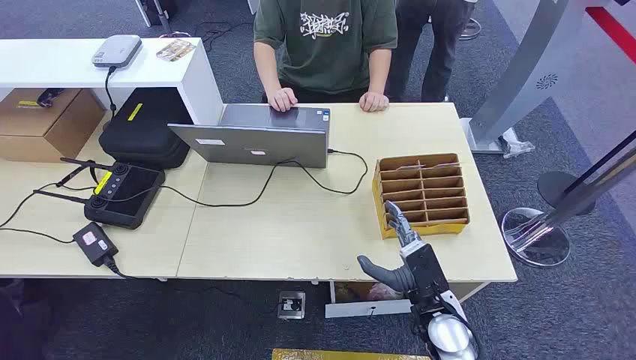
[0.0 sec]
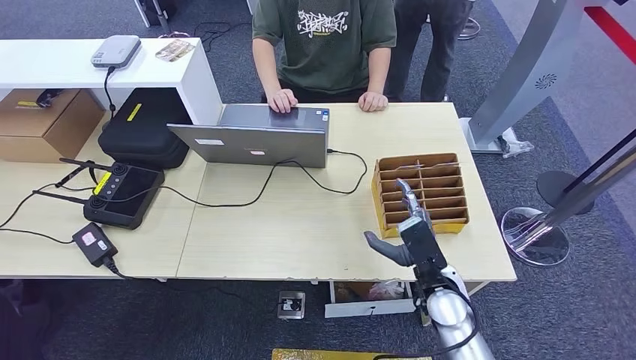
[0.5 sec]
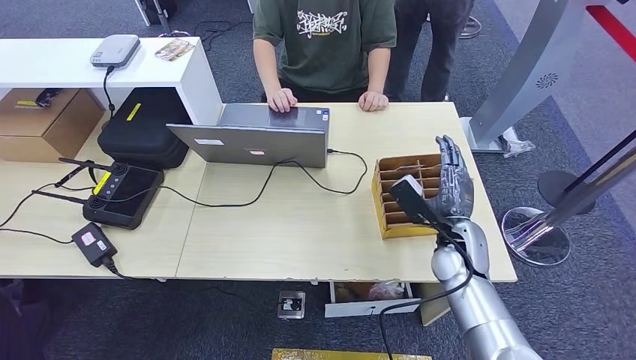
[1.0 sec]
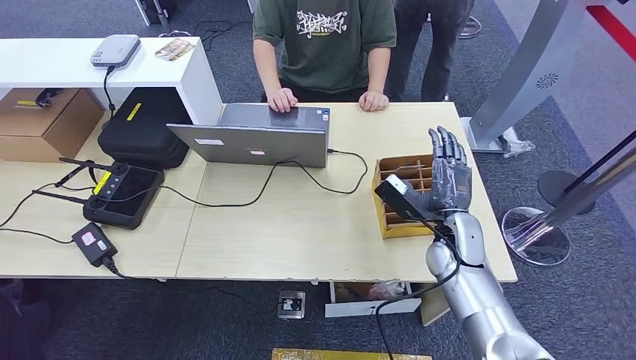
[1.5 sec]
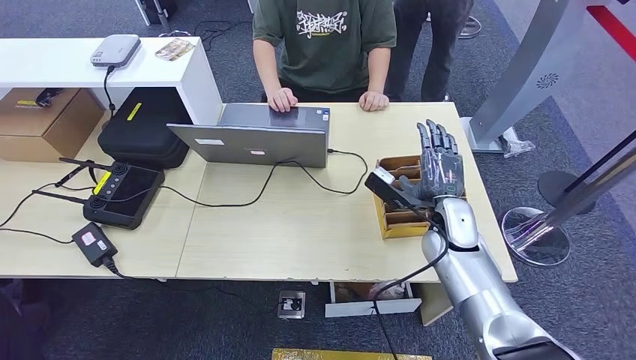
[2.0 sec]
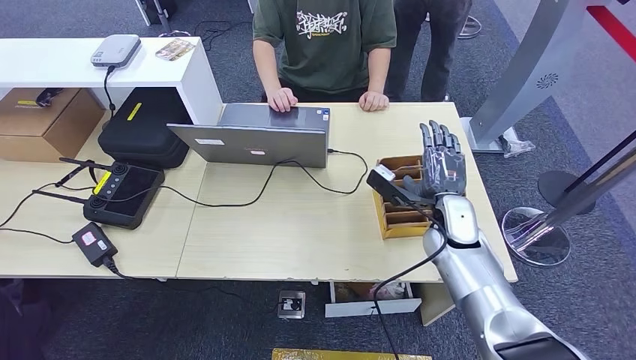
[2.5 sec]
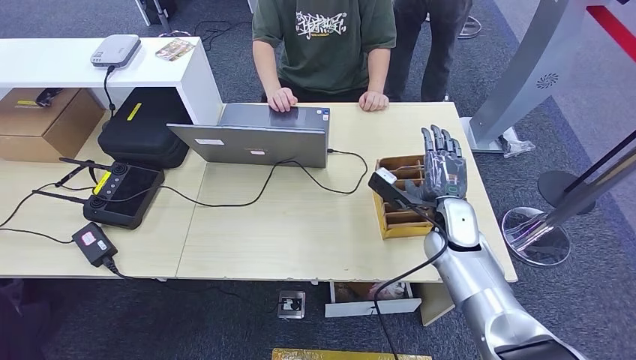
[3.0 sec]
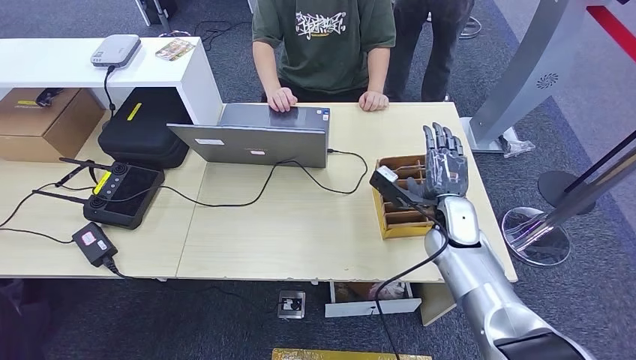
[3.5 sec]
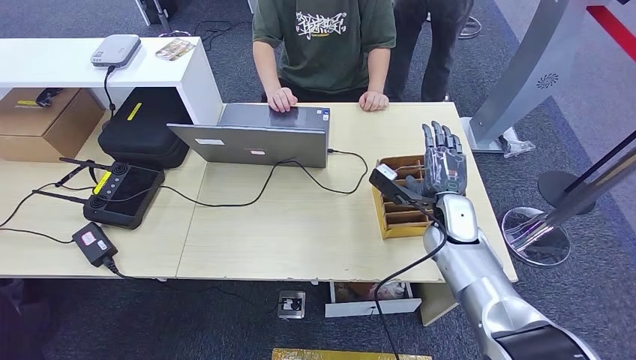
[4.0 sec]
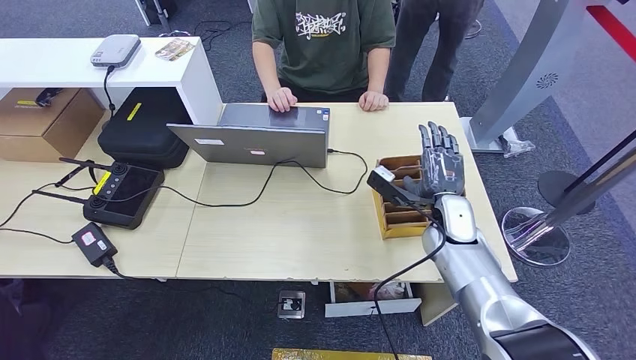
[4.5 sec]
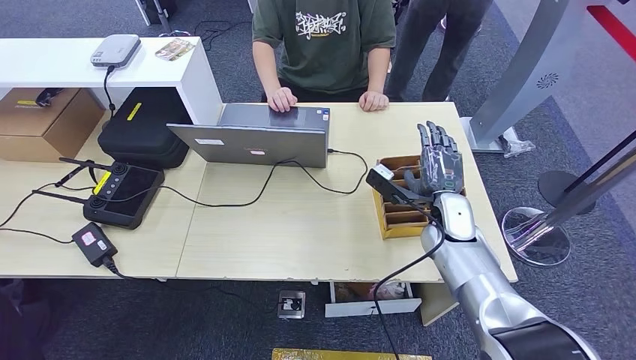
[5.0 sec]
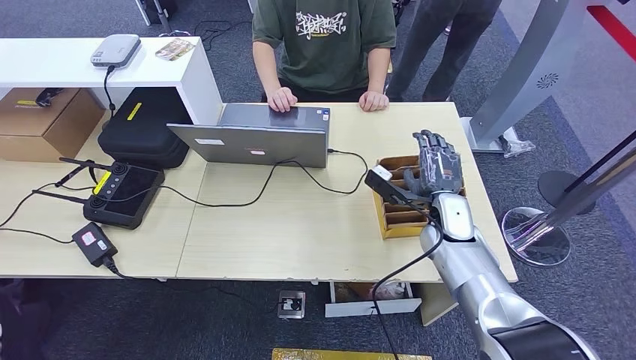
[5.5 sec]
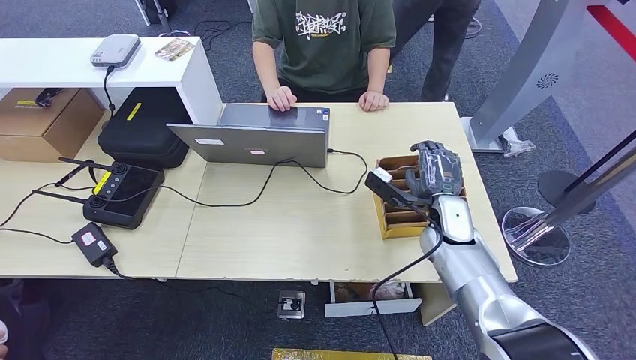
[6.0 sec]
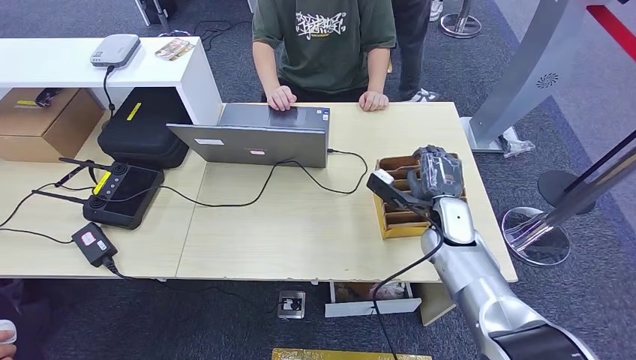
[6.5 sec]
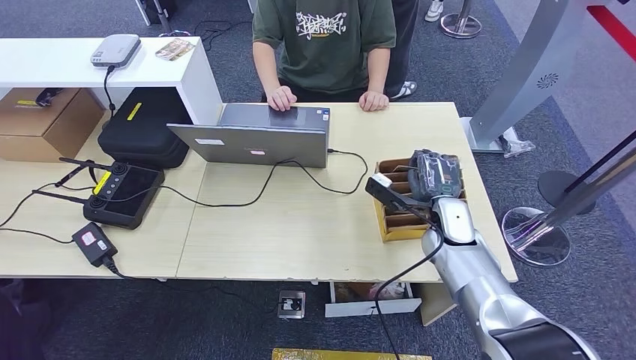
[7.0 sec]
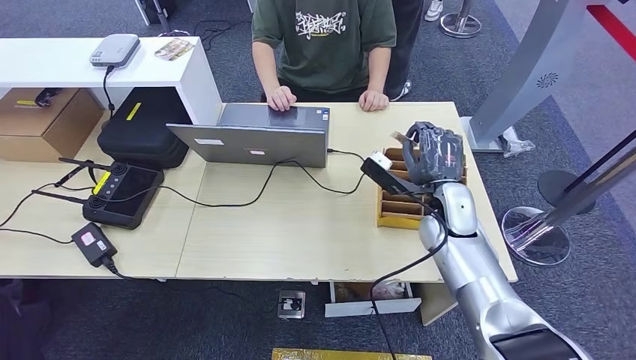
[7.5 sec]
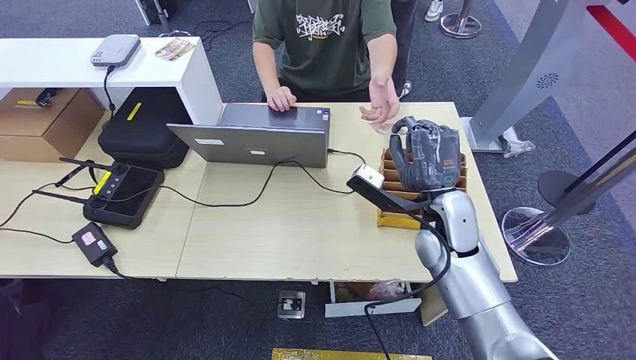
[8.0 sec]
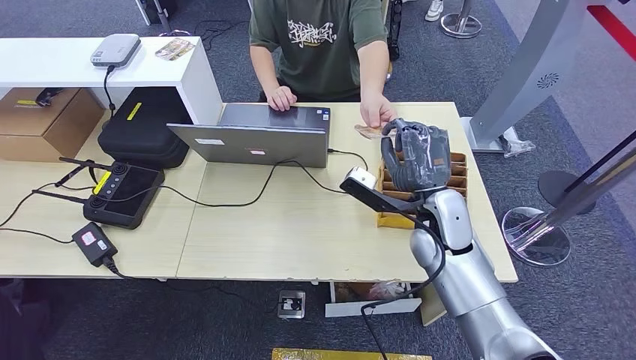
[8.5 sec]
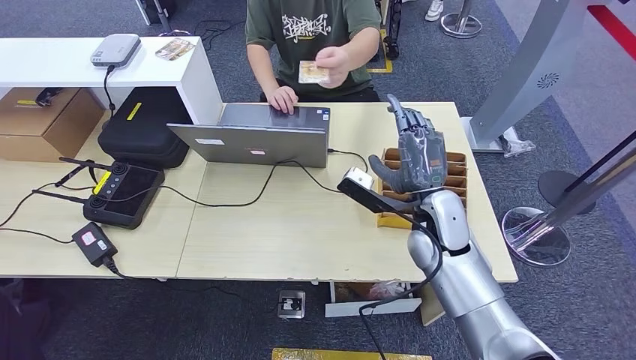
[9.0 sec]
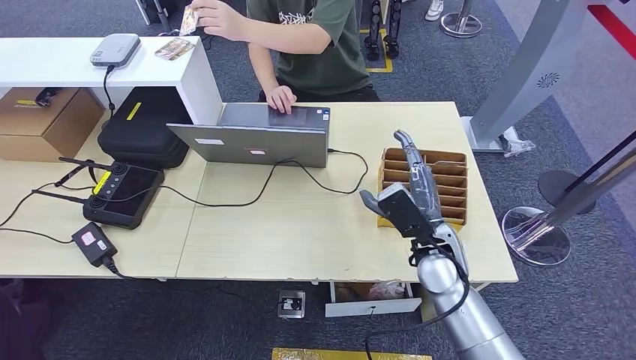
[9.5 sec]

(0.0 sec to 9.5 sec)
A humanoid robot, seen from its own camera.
Step, 0.0 sec - 7.0 sec: Pick up the key card from the card box.
Step, 8.0 sec - 9.5 sec: Hand the key card to the target.
2.0 sec - 4.0 sec: There are only small adjustments of the hands.
4.0 sec - 5.5 sec: Both hands stay put.
5.5 sec - 7.5 sec: There are only small adjustments of the hands.
7.5 sec - 9.5 sec: The right hand goes some 5 cm backward.

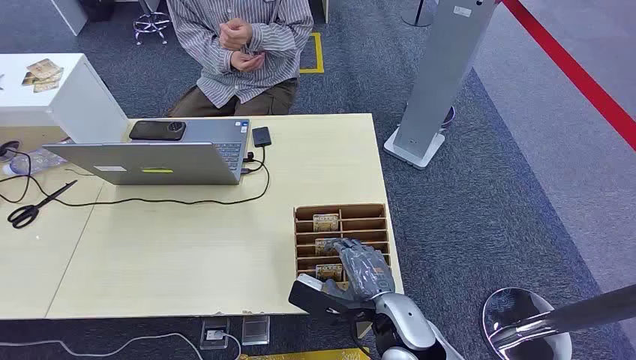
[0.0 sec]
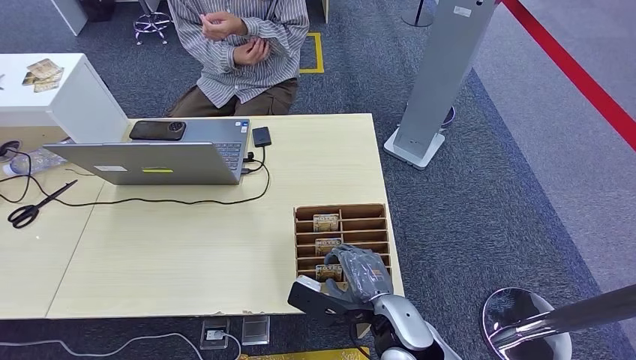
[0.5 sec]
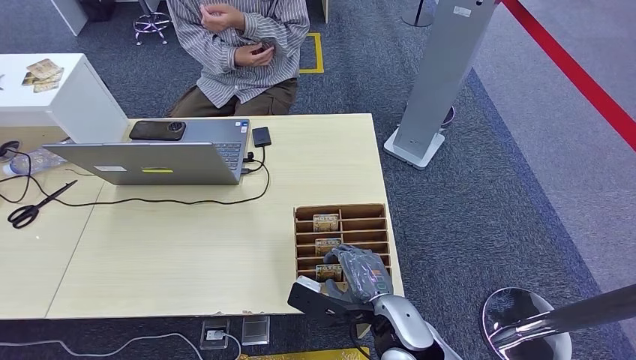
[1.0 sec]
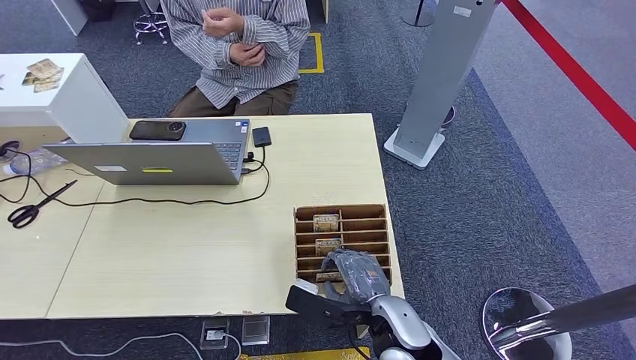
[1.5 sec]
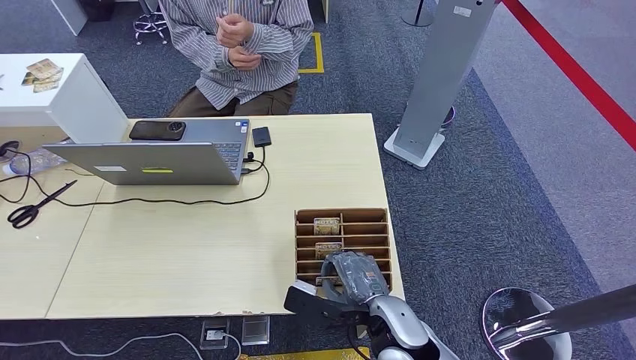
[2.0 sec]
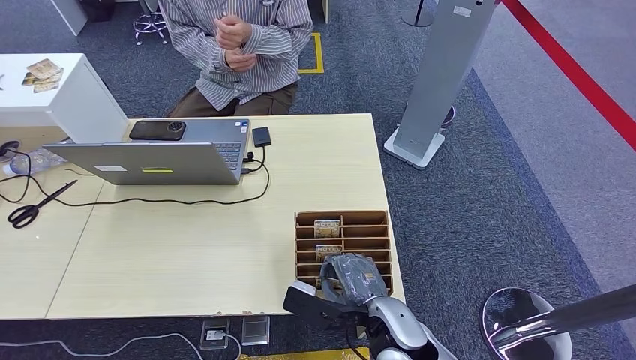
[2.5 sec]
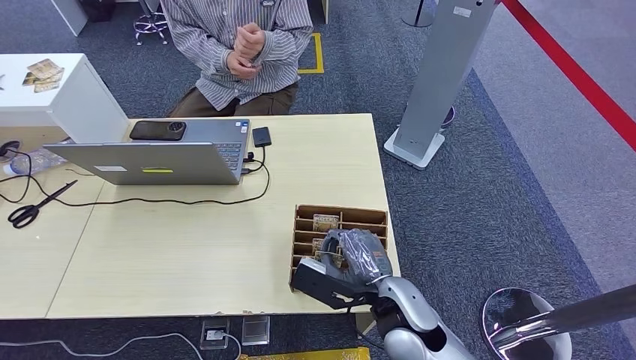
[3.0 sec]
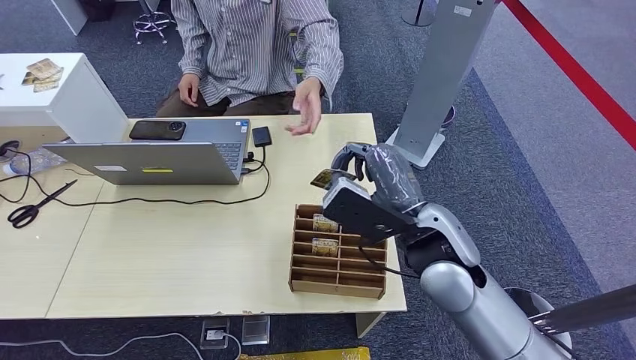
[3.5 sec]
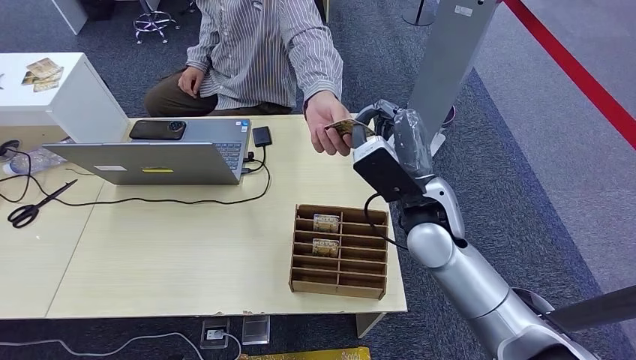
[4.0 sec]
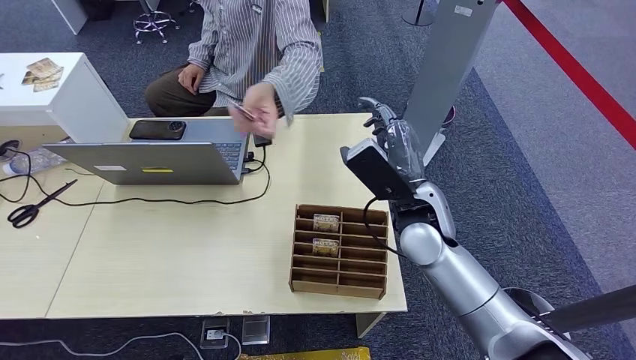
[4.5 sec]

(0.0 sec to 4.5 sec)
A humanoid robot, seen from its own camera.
Step, 0.0 sec - 3.0 sec: Pick up the key card from the card box.
Step, 4.0 sec - 4.5 sec: Hand the key card to the target.
2.0 sec - 4.5 sec: The right hand moves forward and upward, about 20 cm.

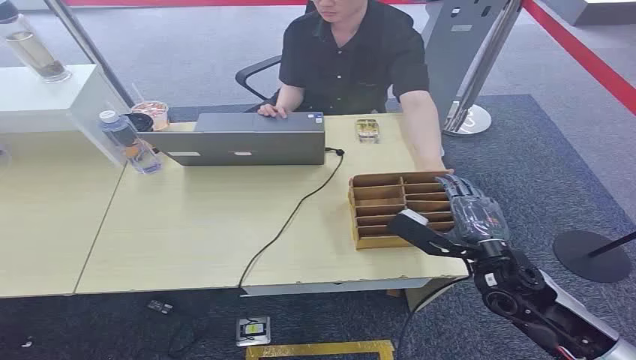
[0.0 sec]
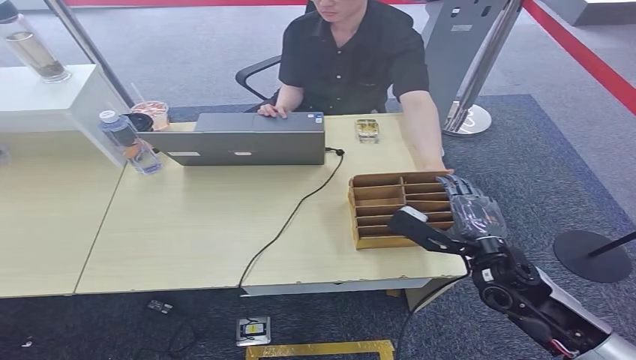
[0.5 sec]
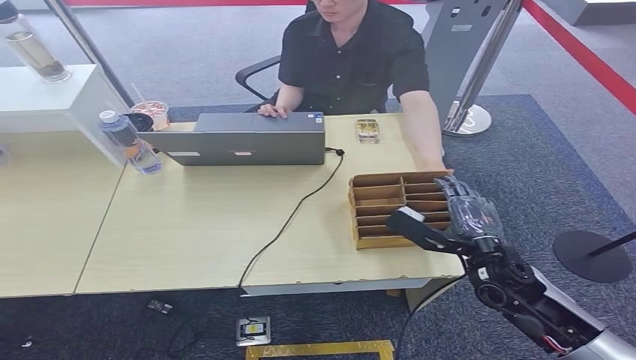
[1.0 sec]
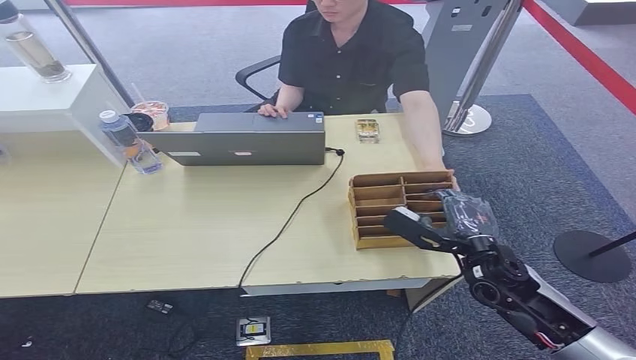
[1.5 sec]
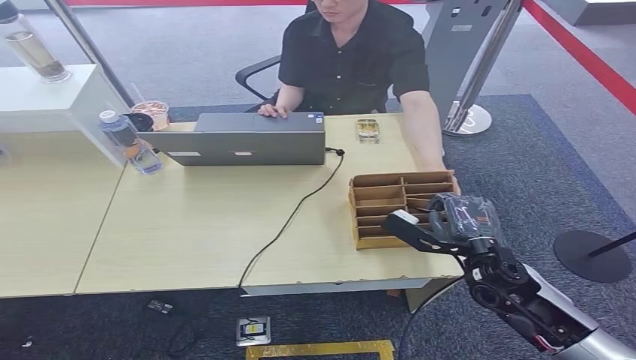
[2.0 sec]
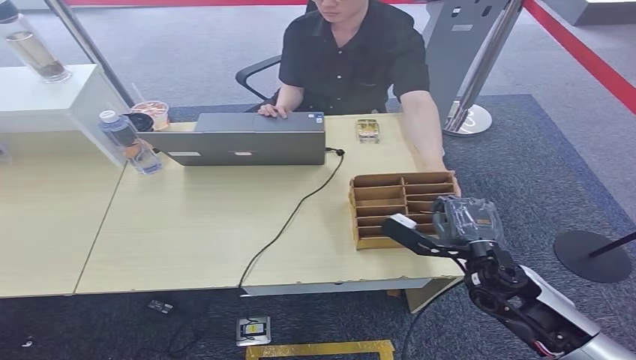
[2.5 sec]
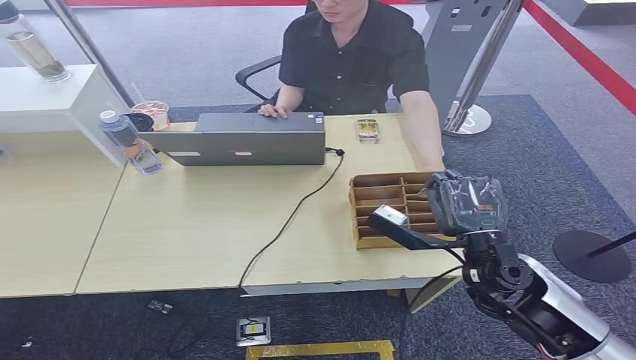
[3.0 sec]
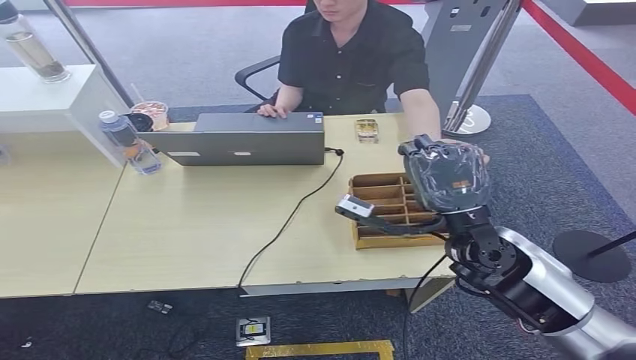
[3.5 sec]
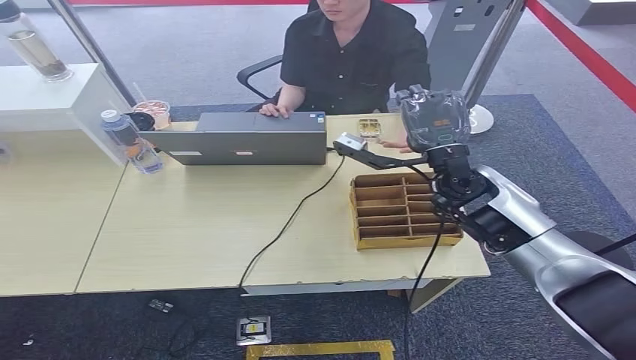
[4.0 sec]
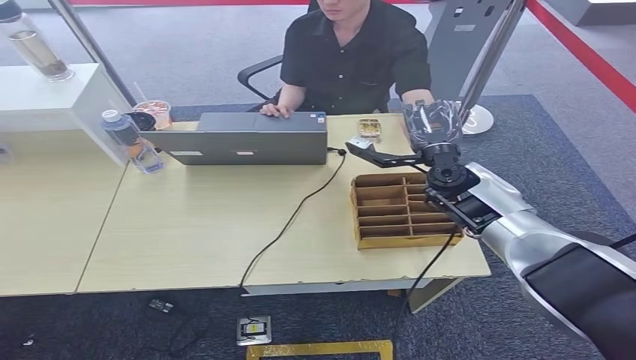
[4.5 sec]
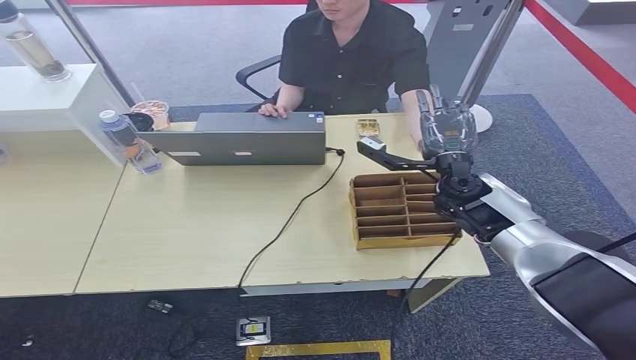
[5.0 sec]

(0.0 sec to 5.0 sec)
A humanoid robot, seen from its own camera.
Step, 0.0 sec - 3.0 sec: Pick up the key card from the card box.
Step, 3.5 sec - 5.0 sec: Hand the key card to the target.
2.5 sec - 5.0 sec: The right hand shifts roughly 20 cm forward and upward.
